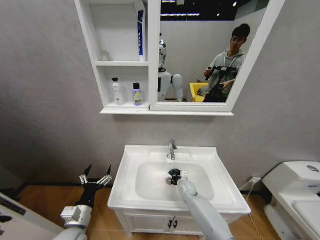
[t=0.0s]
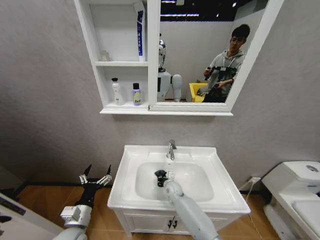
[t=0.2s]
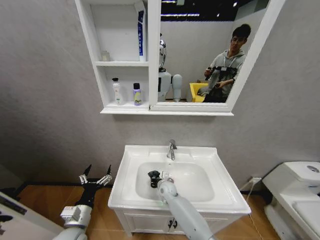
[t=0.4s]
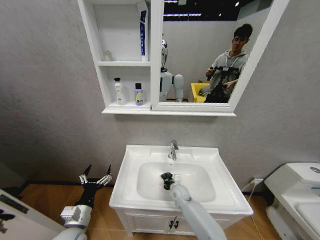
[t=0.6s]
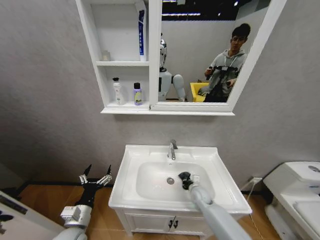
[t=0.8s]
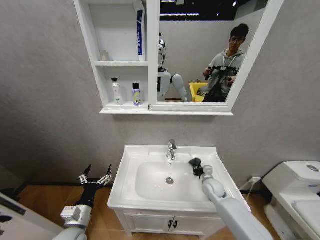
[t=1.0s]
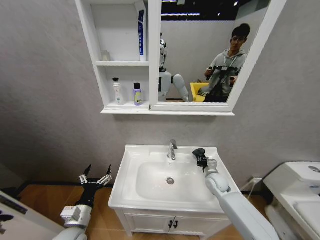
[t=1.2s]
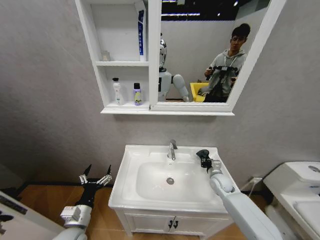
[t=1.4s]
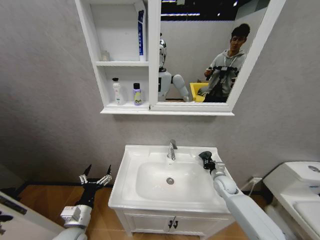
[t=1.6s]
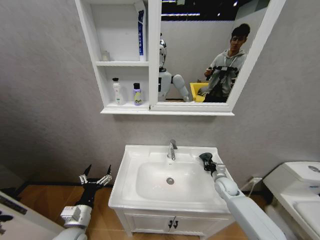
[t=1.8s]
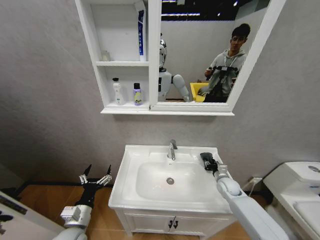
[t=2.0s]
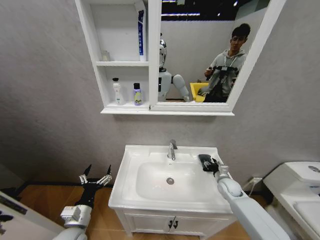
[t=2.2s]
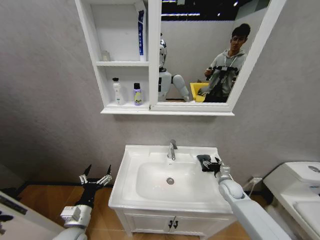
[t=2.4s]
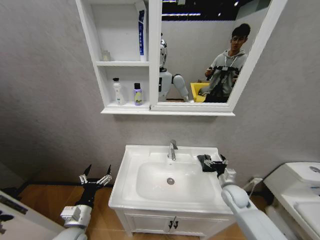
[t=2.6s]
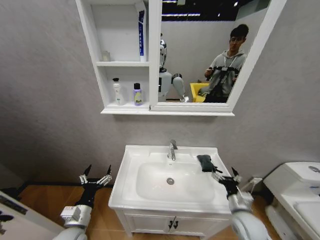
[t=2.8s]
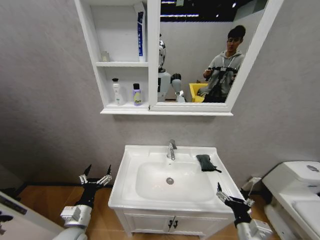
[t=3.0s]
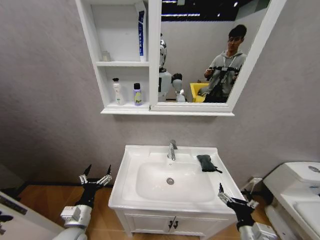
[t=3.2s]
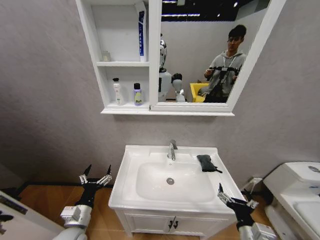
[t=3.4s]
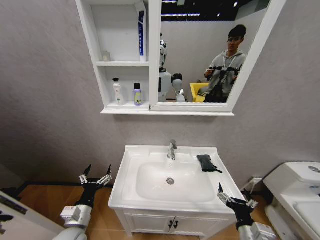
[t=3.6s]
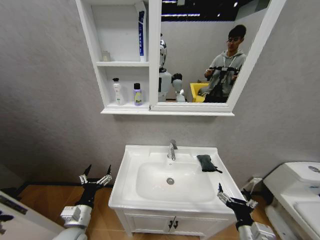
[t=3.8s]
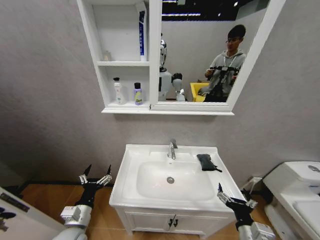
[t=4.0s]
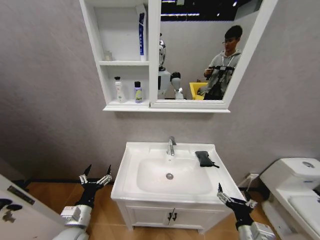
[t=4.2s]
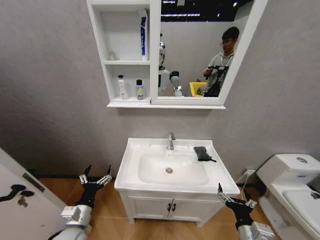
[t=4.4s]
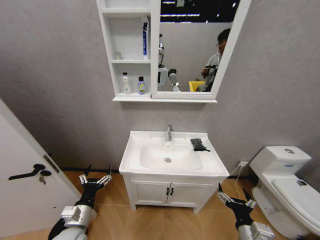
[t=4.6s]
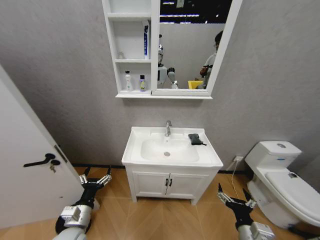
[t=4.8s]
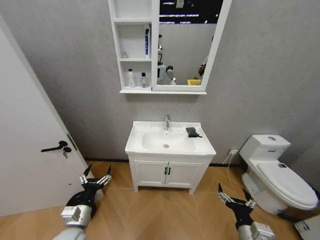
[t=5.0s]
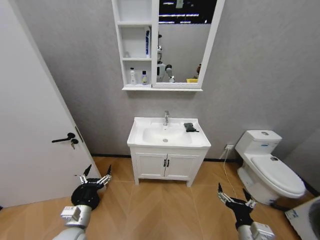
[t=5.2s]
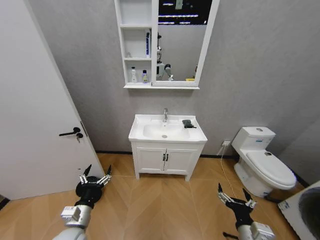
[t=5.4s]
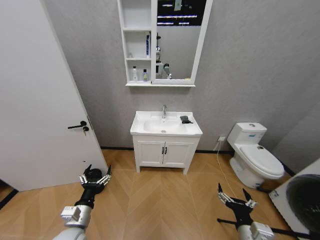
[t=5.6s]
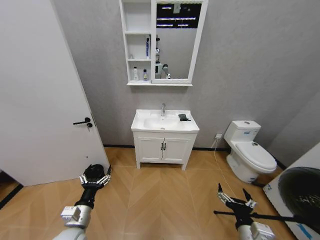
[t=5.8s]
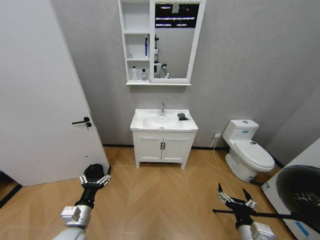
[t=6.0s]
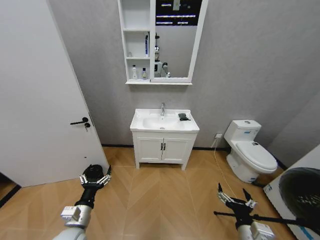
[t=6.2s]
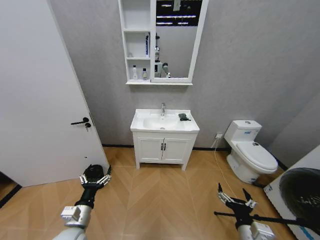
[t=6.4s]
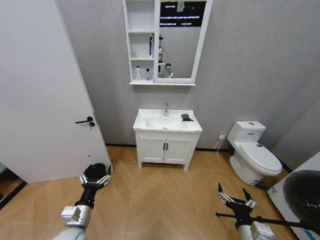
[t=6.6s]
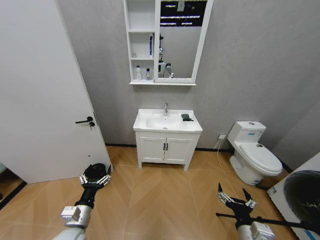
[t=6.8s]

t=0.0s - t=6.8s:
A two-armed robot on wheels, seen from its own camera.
Task of the whole recording: Move facial cleanser and shampoo from washbasin to cabinet, then wipe washbasin with towel.
t=0.0s - t=1.4s: The right gripper shifts approximately 20 cm to the right and upward.
t=1.4s - t=2.8s: The right gripper goes approximately 20 cm backward, and opens.
t=2.8s - t=4.0s: The right gripper is displaced backward and to the left by some 10 cm.
